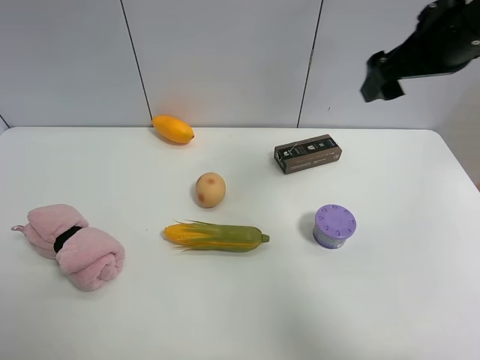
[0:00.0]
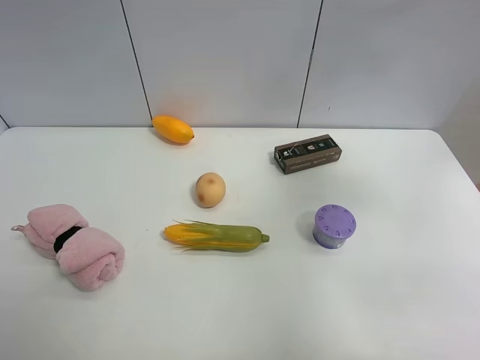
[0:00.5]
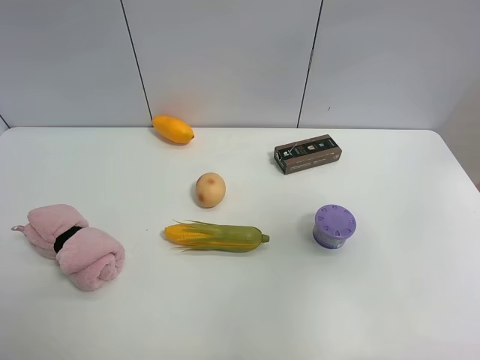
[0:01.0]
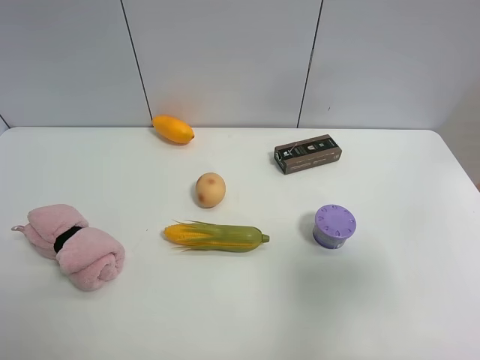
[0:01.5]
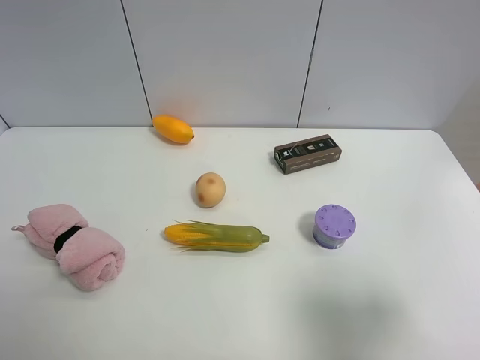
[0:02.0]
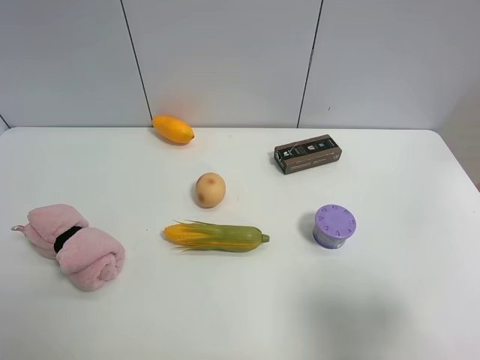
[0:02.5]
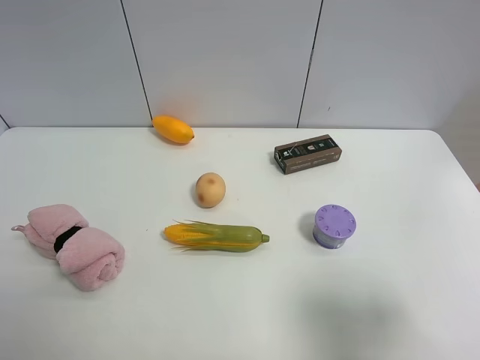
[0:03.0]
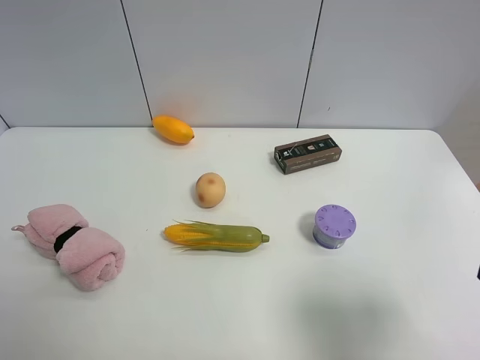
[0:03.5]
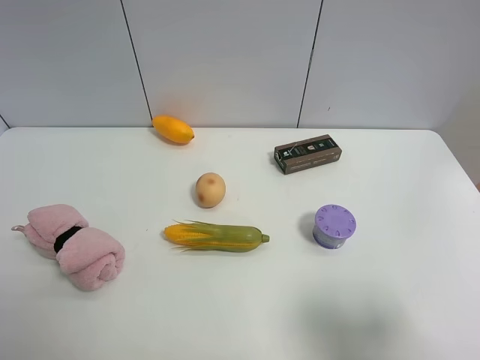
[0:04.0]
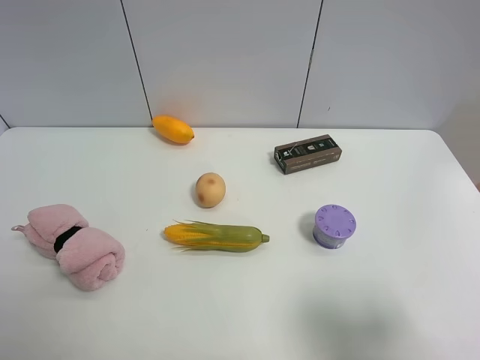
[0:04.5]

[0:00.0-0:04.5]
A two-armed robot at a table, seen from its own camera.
Task of the whole recording: the gripper move the object.
0:00.0 to 0:02.0: The right gripper is displaced backward by approximately 25 cm.

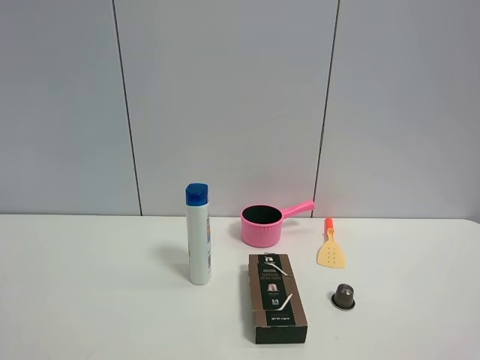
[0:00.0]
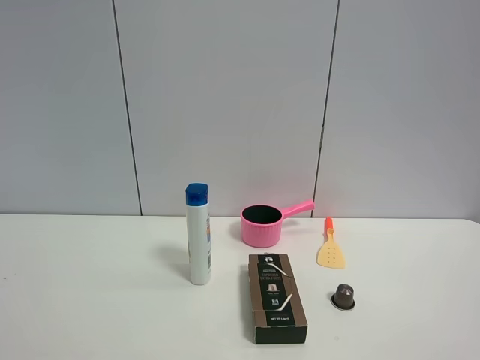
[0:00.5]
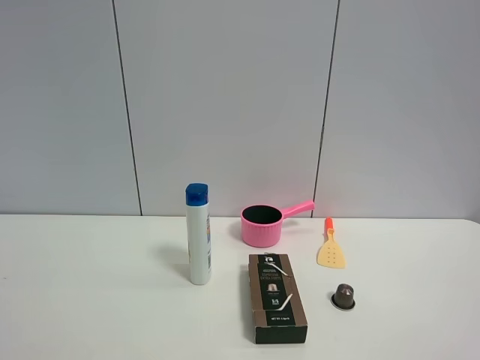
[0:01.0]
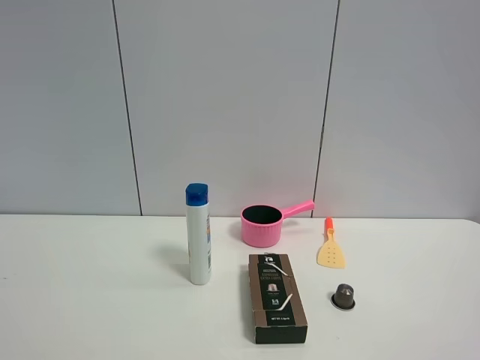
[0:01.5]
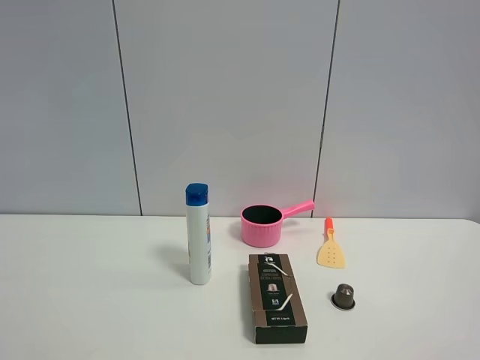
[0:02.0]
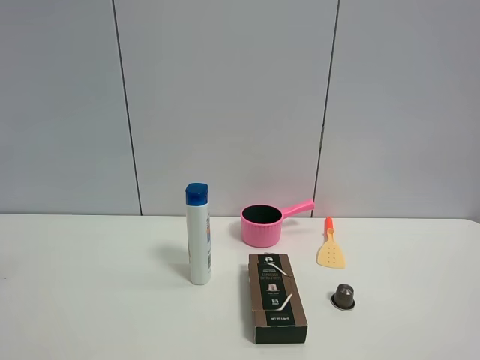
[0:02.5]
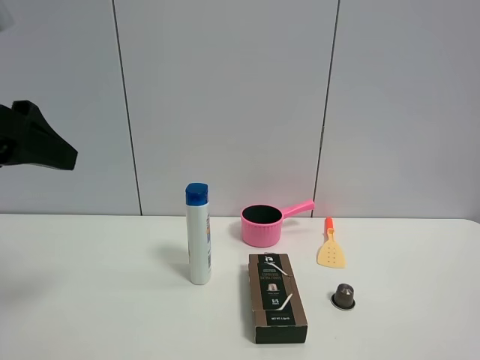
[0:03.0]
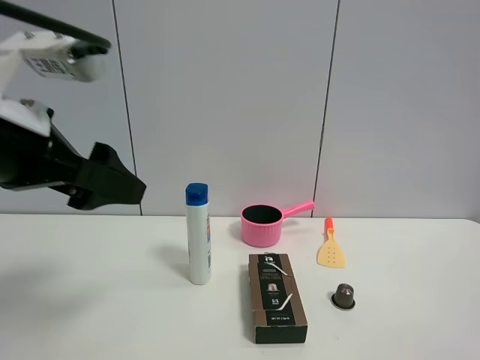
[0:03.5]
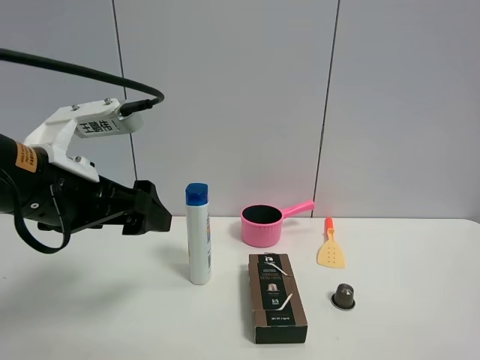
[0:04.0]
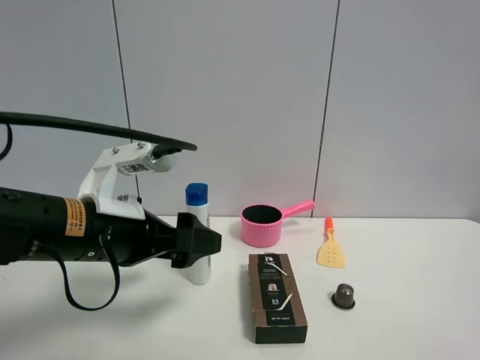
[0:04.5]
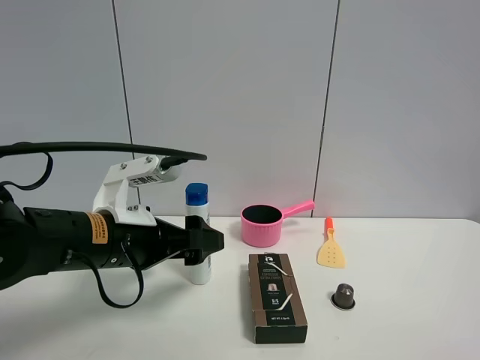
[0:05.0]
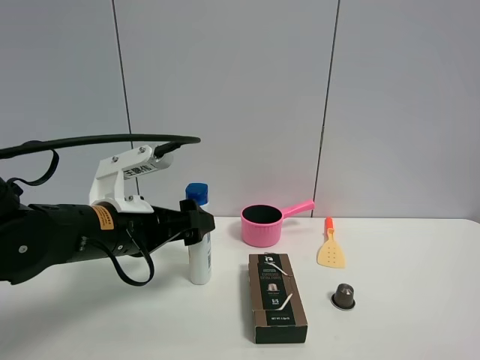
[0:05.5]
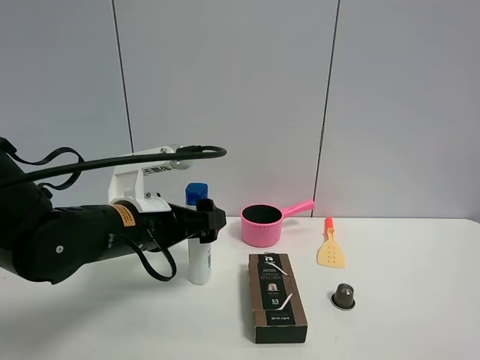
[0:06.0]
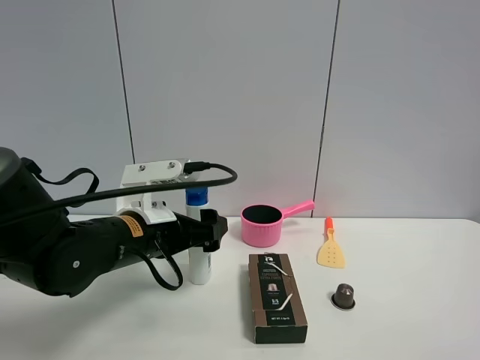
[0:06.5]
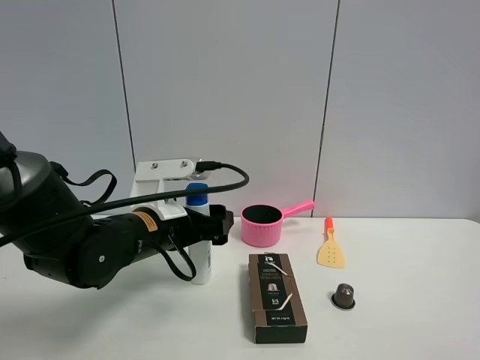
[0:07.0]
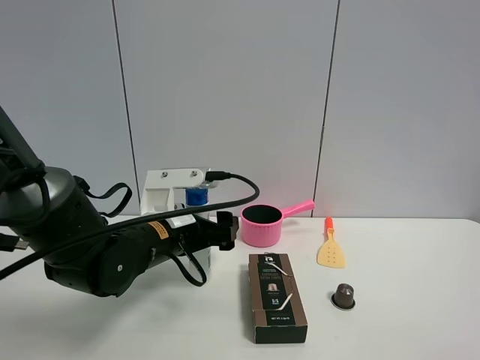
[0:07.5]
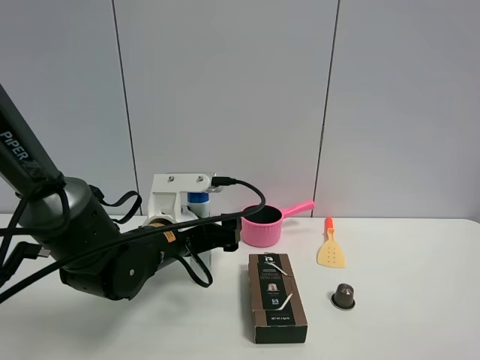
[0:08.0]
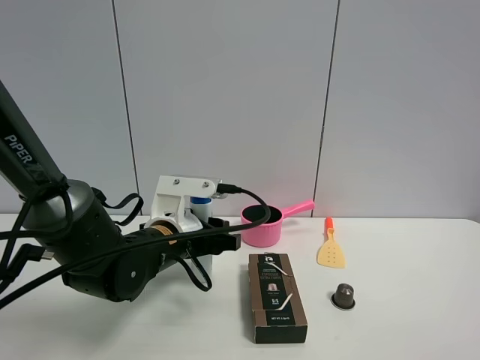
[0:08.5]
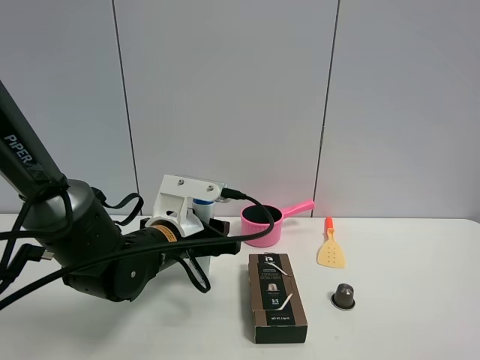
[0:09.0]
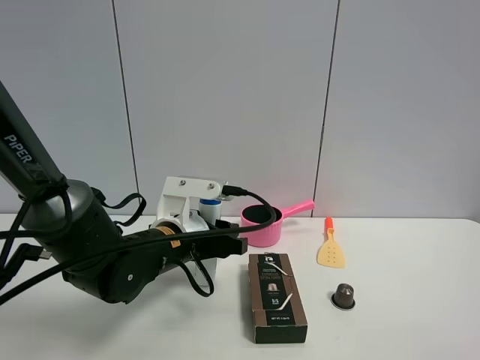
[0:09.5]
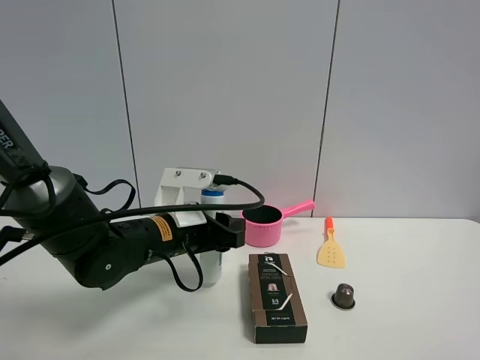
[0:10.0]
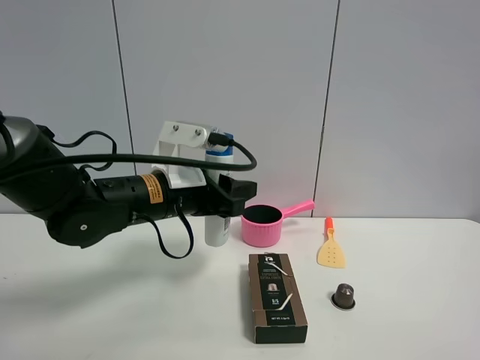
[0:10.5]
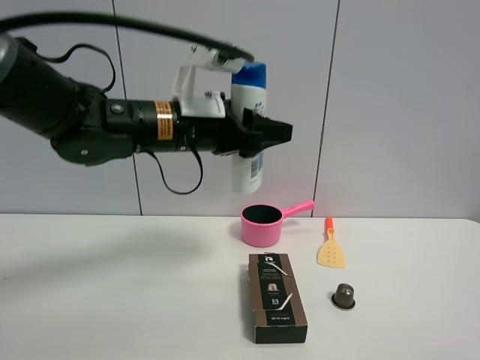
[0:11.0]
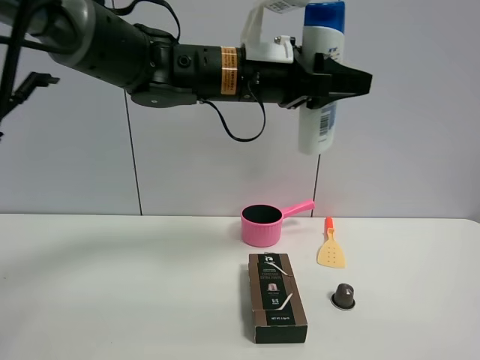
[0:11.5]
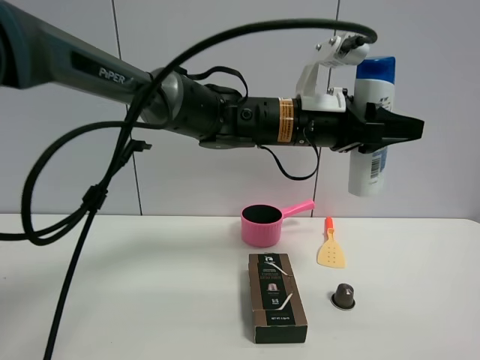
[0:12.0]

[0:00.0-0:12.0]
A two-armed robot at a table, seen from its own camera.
Task of the whole recording: the gripper move the object.
Step, 0:00.0 to 0:08.5: Grasp the shampoo with the left gripper.
0:02.0 to 0:04.0: The left gripper travels forward, downward and to the right by roughly 30 cm.
0:04.0 to 0:06.0: The left gripper is displaced downward and forward by about 10 cm.
0:06.0 to 0:08.0: The left gripper ends up about 5 cm from where it was.
0:08.0 to 0:10.0: The left gripper closes up.
0:10.0 to 0:12.0: The left gripper goes roughly 20 cm to the right and upward.

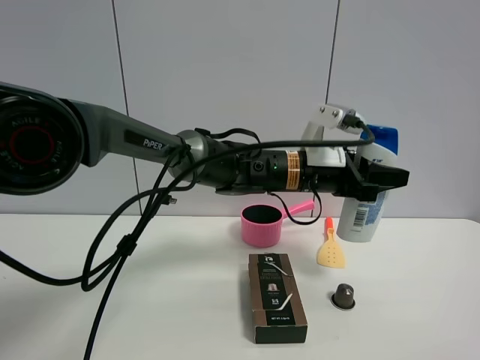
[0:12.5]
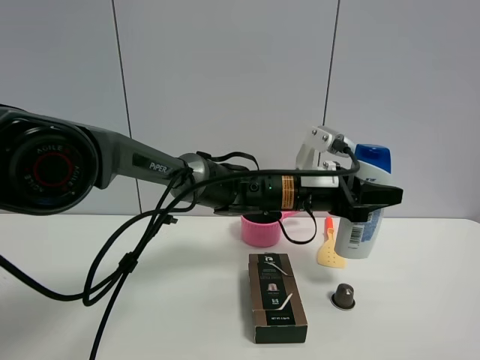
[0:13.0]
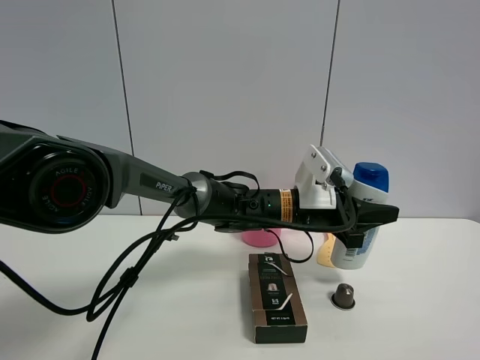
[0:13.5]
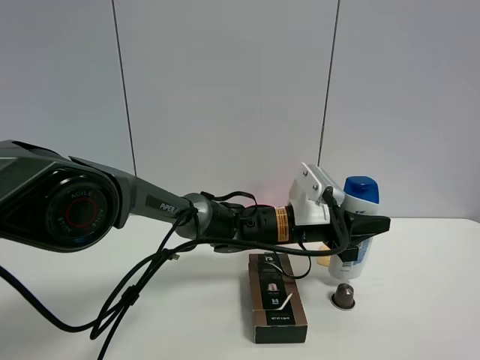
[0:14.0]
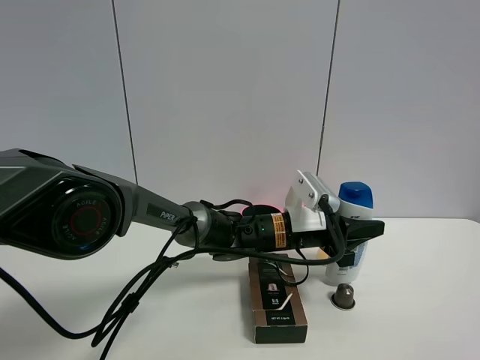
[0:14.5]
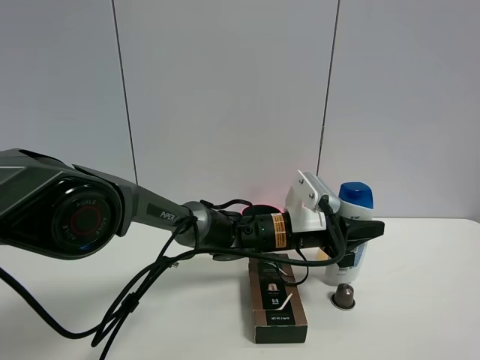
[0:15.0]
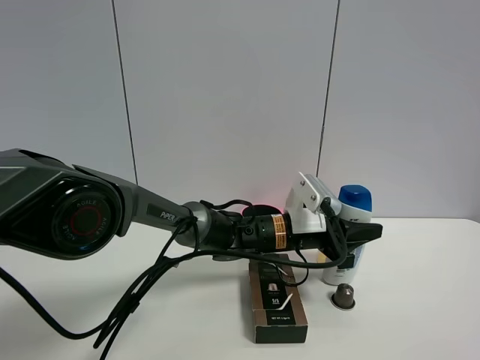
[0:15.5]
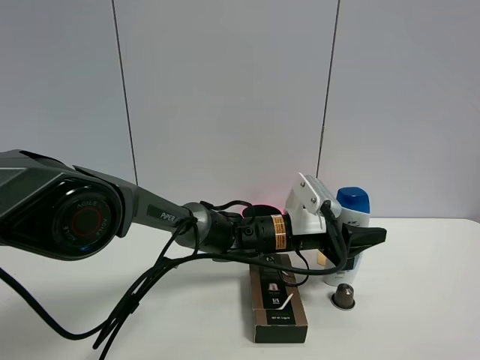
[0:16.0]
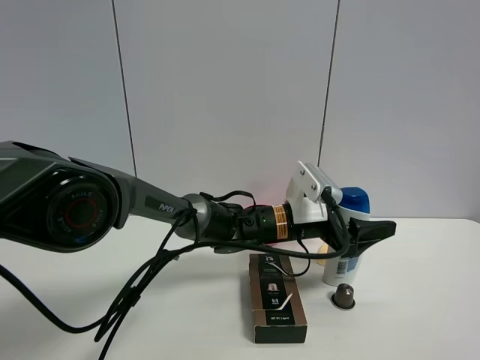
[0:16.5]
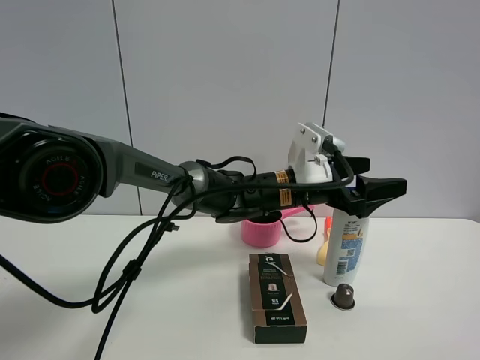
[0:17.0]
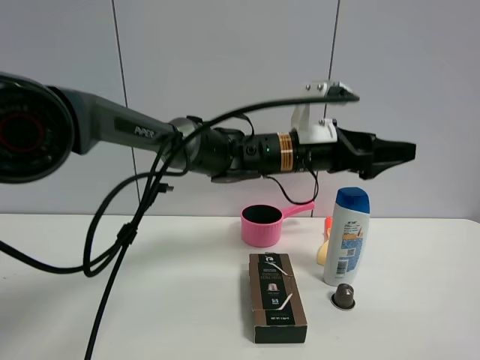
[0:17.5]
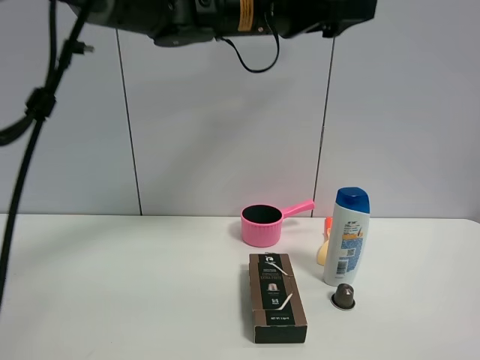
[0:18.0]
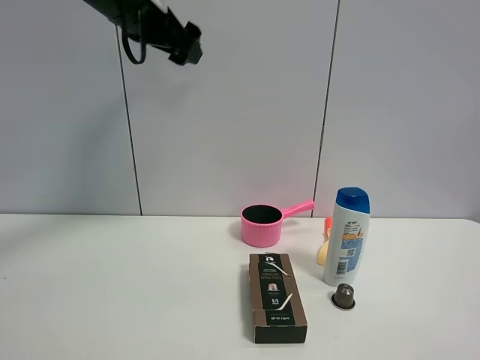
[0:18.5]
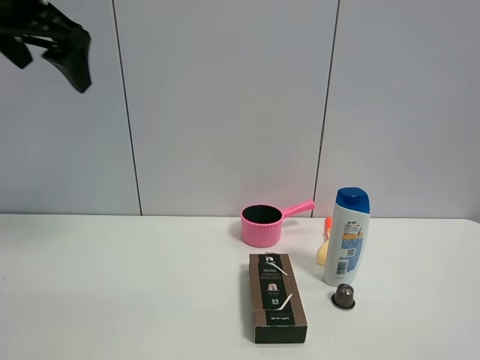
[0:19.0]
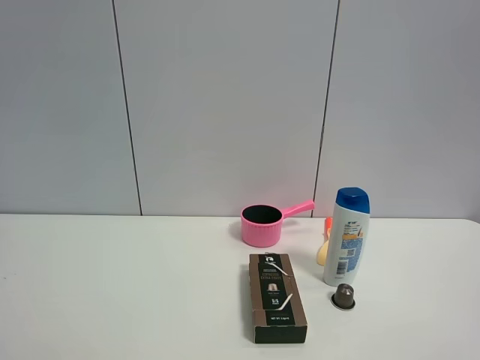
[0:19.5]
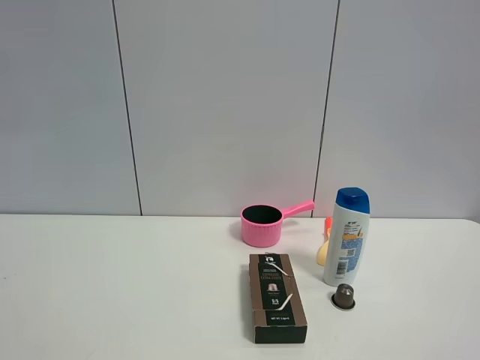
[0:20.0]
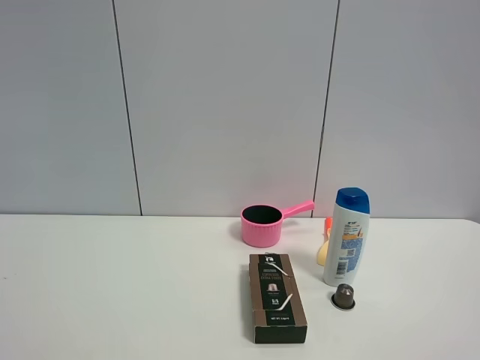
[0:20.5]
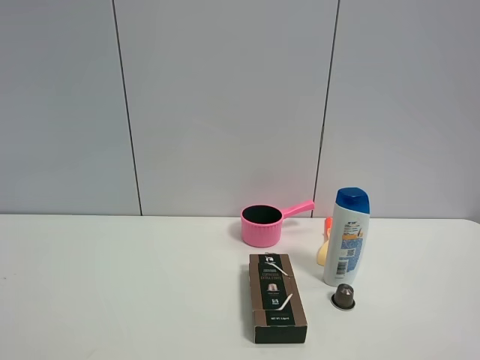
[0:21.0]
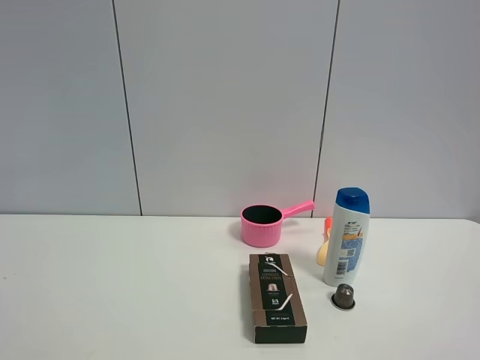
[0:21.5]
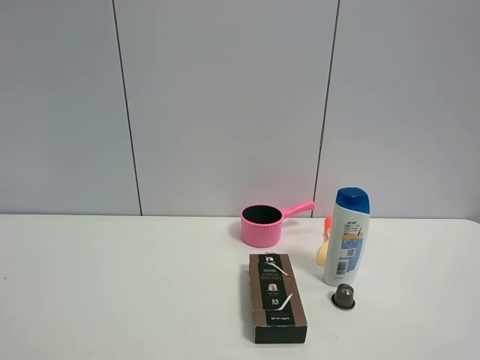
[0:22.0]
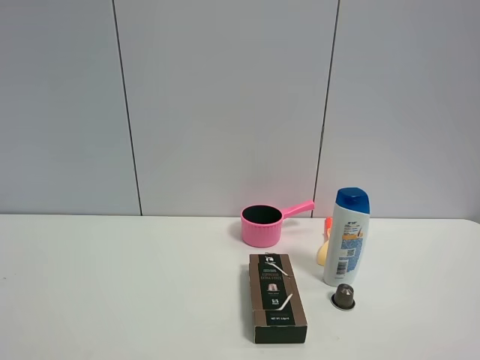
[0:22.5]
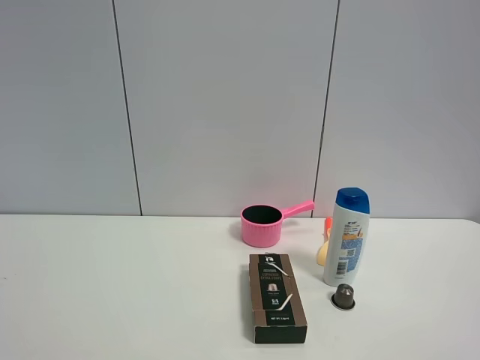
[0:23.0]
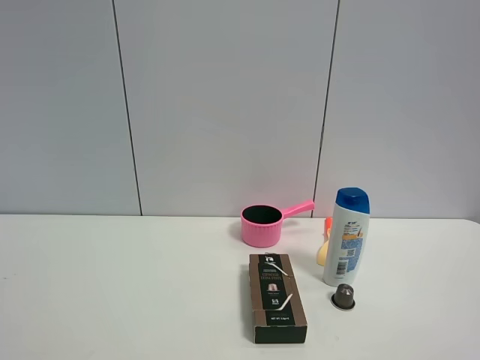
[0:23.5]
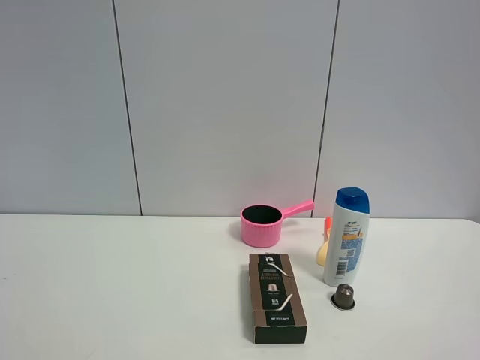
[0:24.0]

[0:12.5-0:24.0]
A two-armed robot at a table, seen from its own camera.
Task of the whole recording: the gripper move the object.
Step, 0:12.5 to 0:16.0: Place the shampoo on the table with the left gripper.
0:12.5 to 0:14.5: The left gripper goes some 10 cm downward.
0:14.5 to 0:16.5: The left gripper opens up.
0:16.5 to 0:18.5: The left gripper goes approximately 35 cm upward and to the left.
0:18.5 to 0:20.0: The left gripper goes roughly 30 cm backward and to the left.
